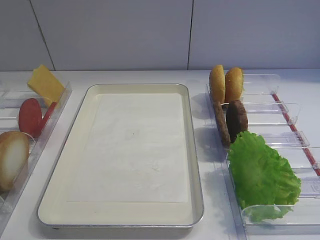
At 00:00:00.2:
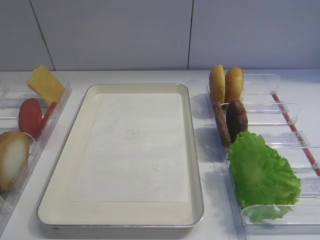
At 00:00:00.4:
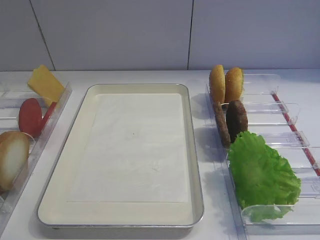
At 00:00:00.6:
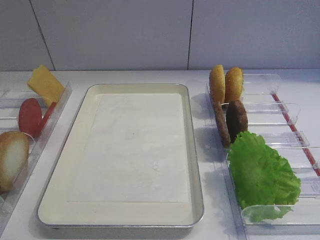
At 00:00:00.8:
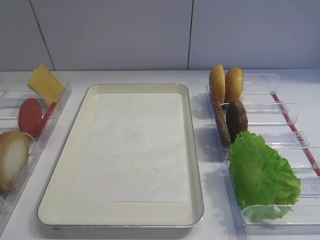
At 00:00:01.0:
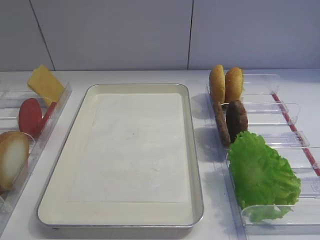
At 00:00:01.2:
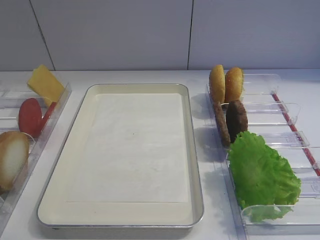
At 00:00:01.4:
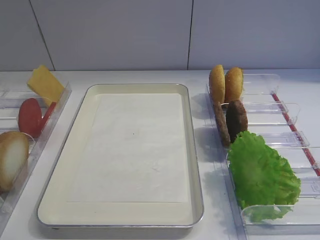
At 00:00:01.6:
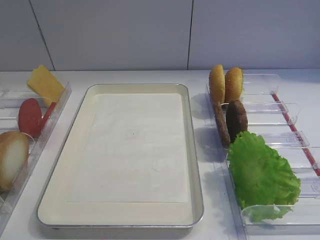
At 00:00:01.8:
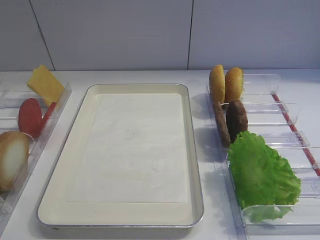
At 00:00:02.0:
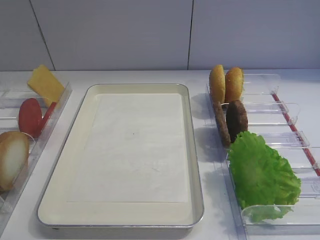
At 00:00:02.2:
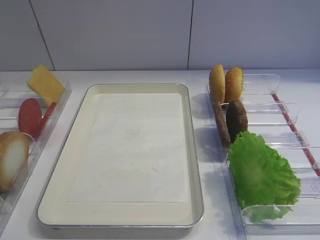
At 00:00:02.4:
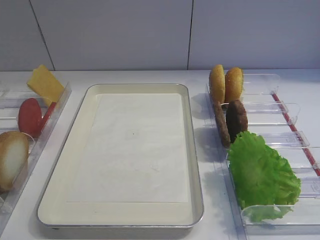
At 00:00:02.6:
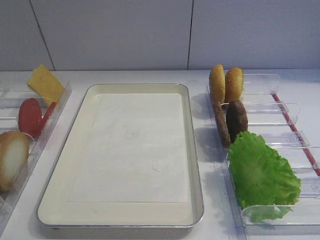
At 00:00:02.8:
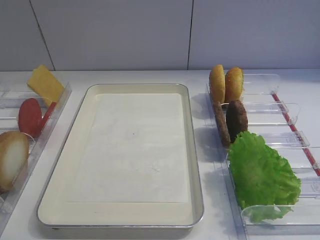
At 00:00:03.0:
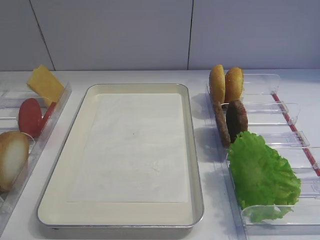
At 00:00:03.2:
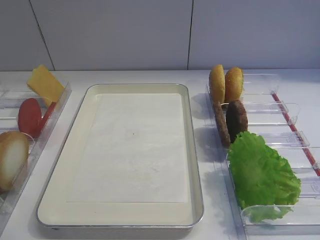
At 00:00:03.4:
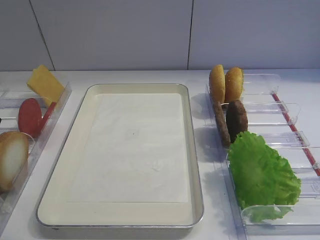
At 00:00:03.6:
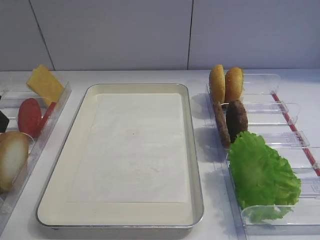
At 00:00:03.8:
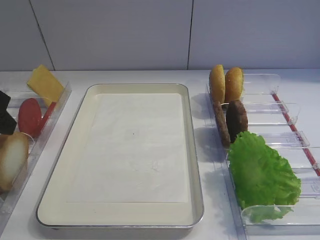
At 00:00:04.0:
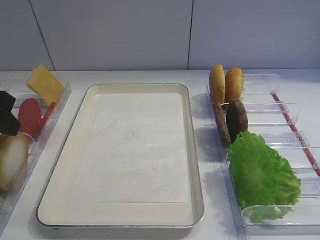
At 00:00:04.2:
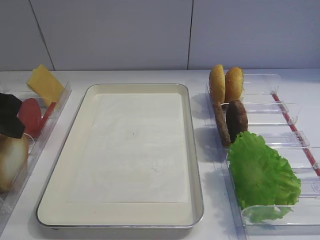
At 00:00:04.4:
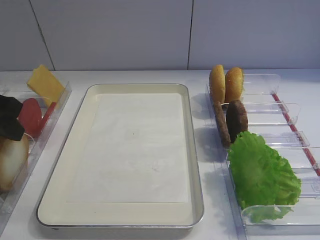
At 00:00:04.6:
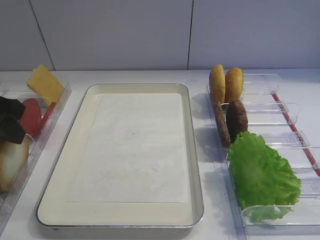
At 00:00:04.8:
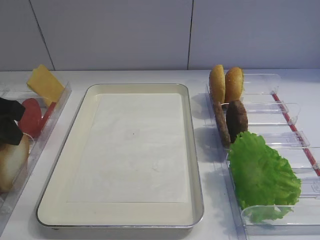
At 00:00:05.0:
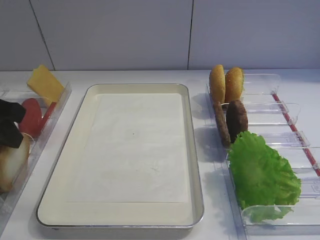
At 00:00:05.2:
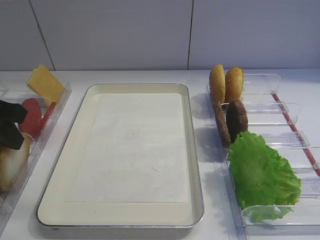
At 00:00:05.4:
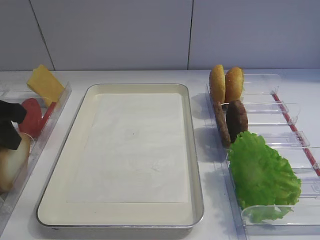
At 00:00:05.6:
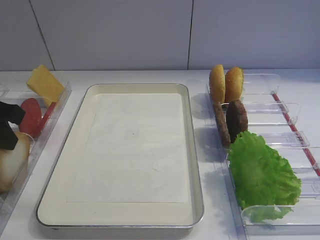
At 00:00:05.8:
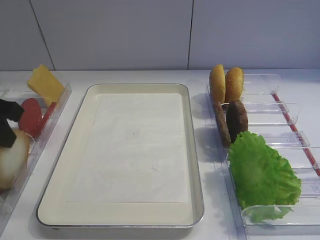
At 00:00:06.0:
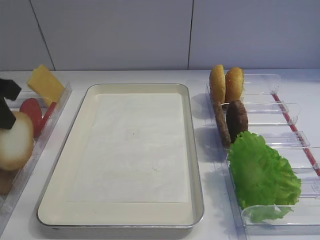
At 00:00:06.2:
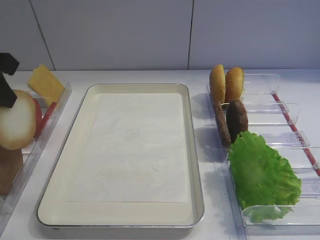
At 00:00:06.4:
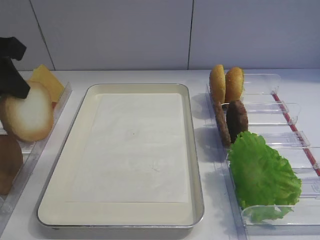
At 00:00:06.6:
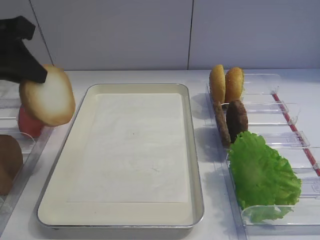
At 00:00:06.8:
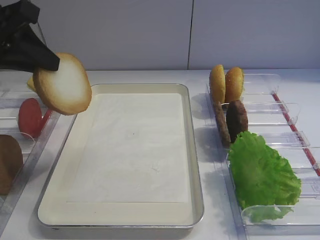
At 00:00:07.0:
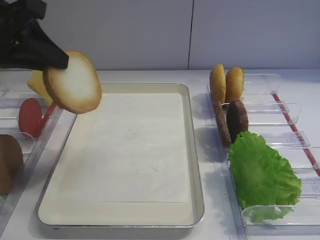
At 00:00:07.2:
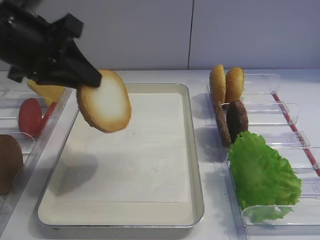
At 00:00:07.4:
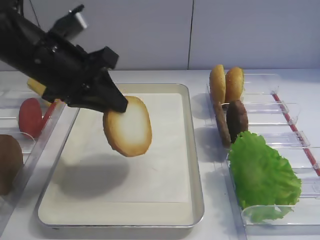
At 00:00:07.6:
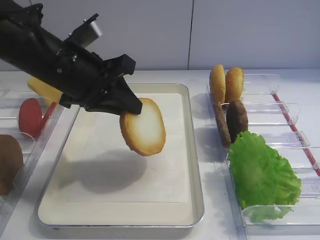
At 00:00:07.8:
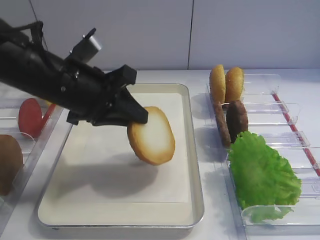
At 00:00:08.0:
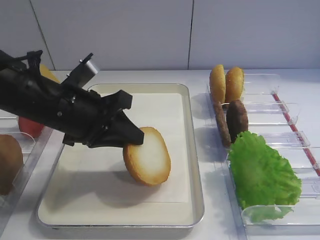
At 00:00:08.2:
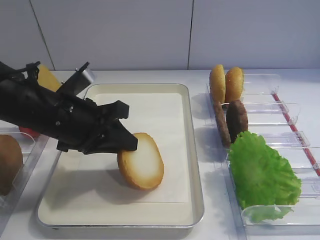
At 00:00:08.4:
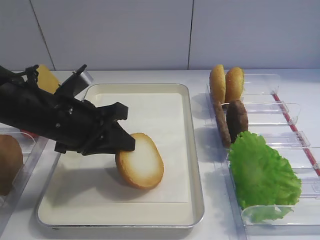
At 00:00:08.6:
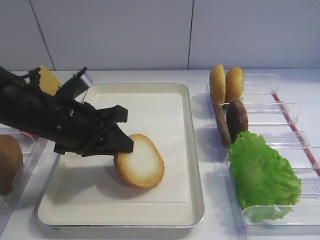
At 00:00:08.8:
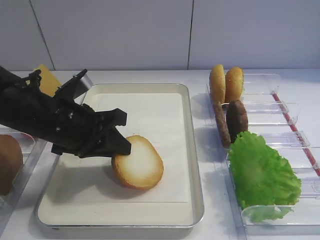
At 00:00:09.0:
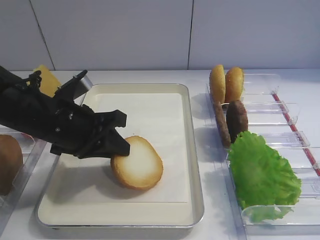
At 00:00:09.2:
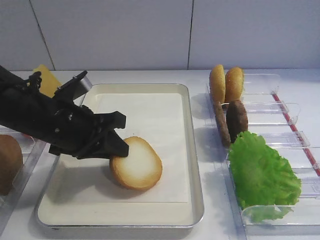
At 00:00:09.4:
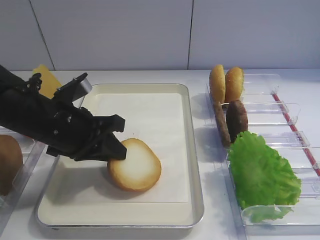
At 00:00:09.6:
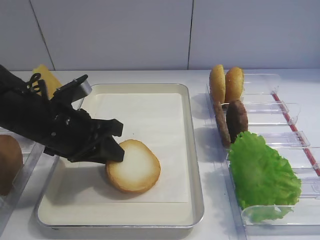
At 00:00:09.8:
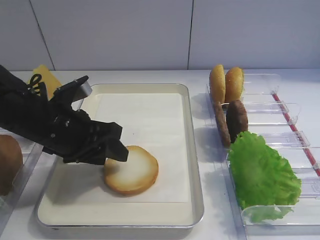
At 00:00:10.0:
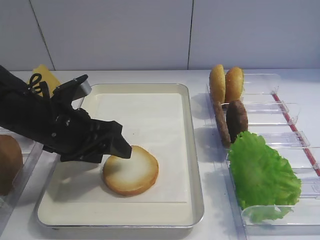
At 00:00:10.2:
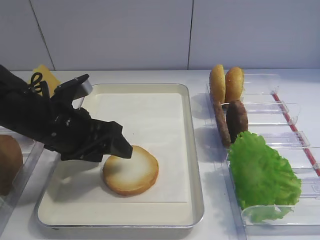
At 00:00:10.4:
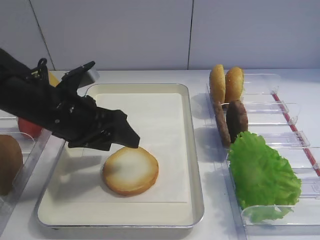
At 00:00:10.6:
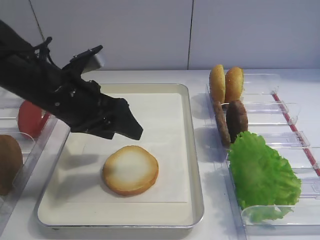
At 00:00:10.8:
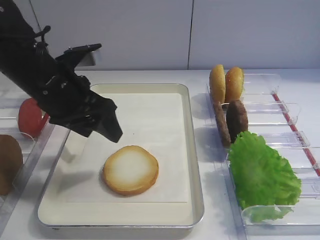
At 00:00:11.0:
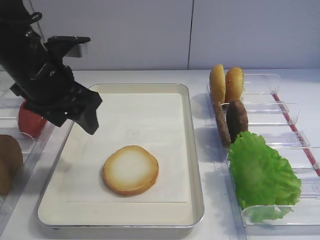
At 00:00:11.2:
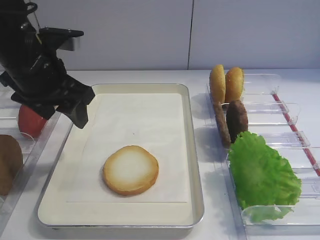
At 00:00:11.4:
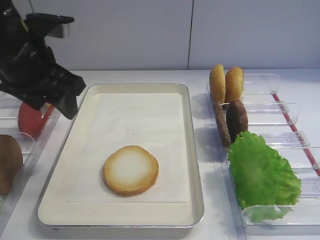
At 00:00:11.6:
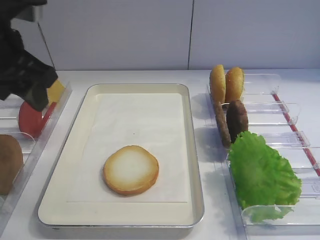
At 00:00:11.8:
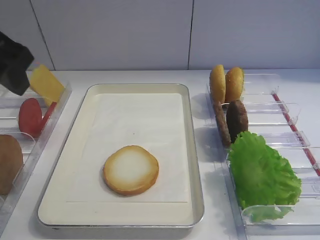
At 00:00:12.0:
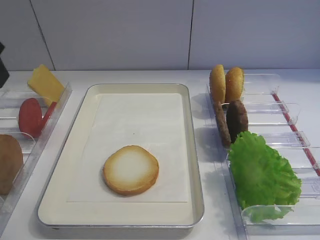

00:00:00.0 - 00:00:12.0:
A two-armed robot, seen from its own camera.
Step, 00:00:06.2 - 00:00:09.8: Place the bread slice on the tray with the left gripper.
00:00:00.0 - 00:00:01.6: The two grippers keep their place.
00:00:03.0 - 00:00:04.4: The left gripper travels forward by approximately 5 cm.
00:00:04.4 - 00:00:06.0: The left gripper travels upward by roughly 5 cm.
00:00:06.0 - 00:00:07.6: The left gripper goes roughly 15 cm to the right and downward.
00:00:09.0 - 00:00:10.4: The left gripper changes place by some 5 cm, and opens.
00:00:10.4 - 00:00:12.0: The left gripper is displaced backward, upward and to the left by roughly 25 cm.

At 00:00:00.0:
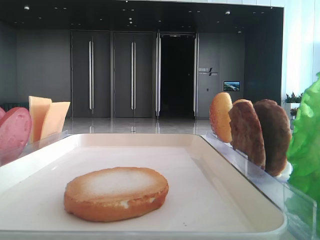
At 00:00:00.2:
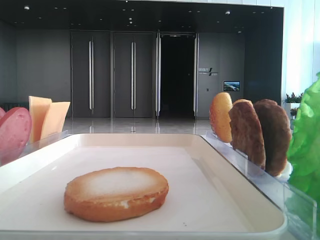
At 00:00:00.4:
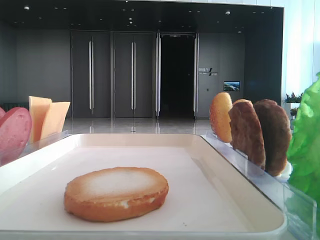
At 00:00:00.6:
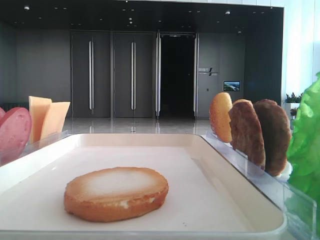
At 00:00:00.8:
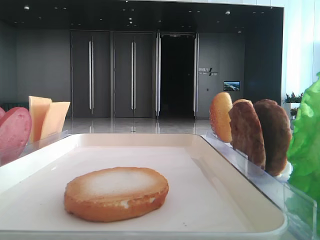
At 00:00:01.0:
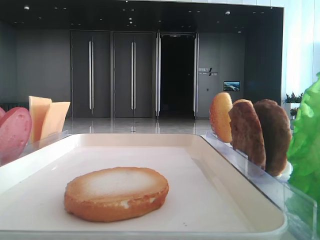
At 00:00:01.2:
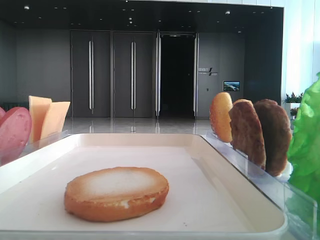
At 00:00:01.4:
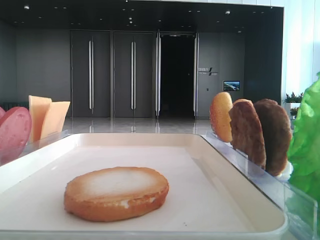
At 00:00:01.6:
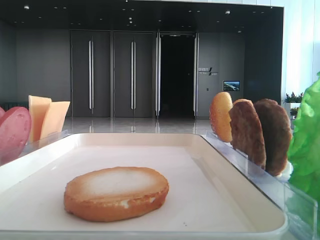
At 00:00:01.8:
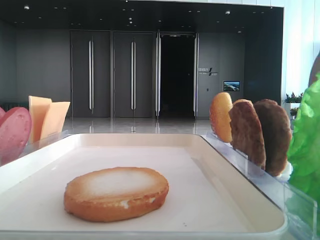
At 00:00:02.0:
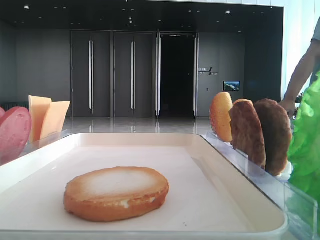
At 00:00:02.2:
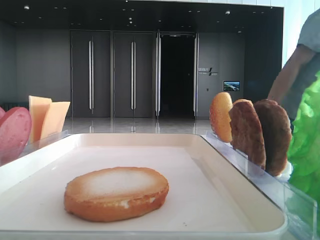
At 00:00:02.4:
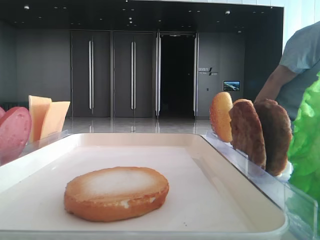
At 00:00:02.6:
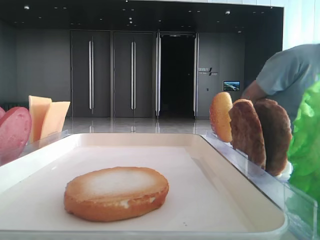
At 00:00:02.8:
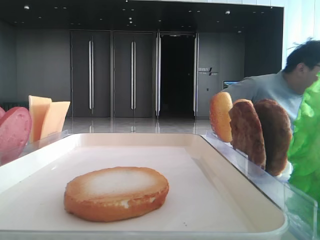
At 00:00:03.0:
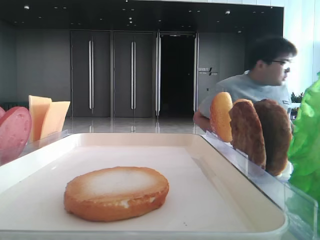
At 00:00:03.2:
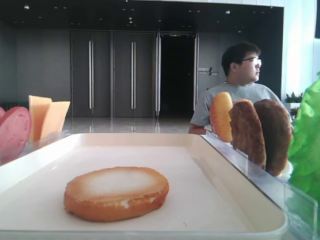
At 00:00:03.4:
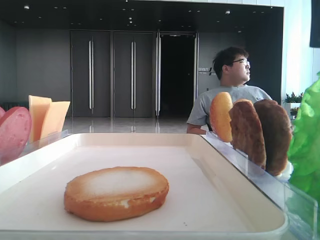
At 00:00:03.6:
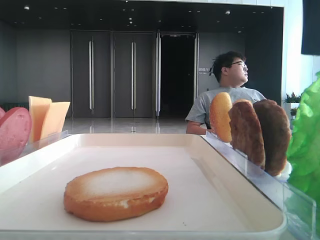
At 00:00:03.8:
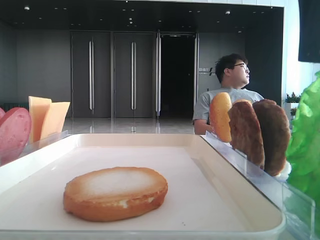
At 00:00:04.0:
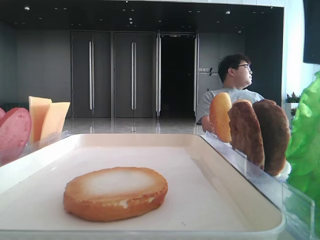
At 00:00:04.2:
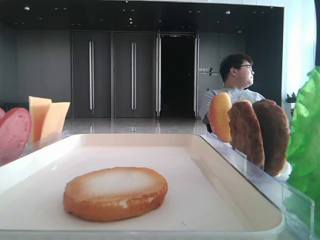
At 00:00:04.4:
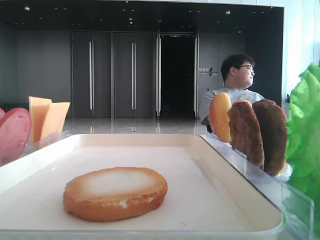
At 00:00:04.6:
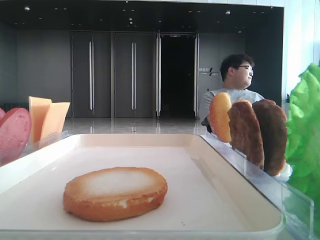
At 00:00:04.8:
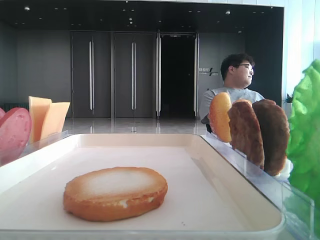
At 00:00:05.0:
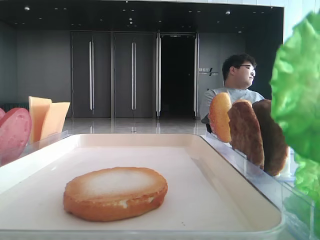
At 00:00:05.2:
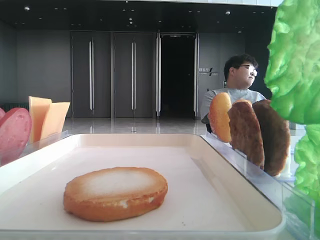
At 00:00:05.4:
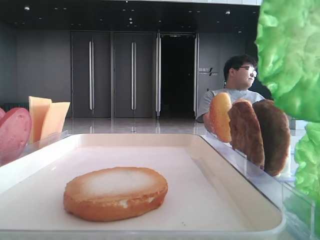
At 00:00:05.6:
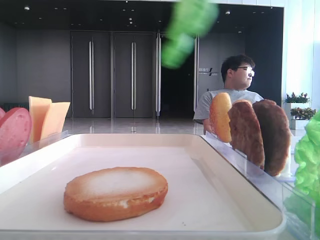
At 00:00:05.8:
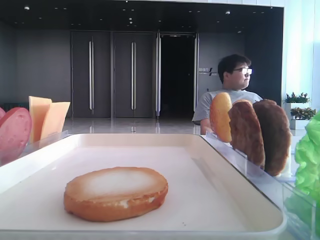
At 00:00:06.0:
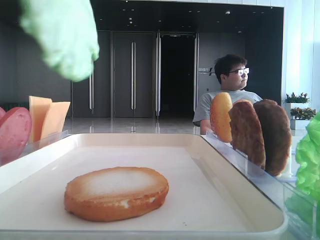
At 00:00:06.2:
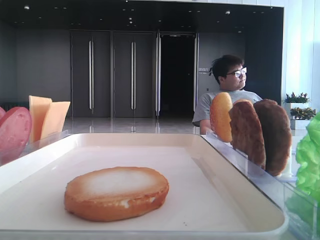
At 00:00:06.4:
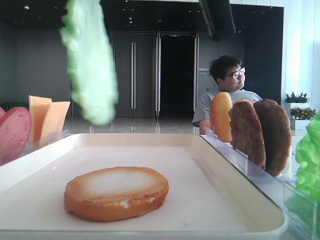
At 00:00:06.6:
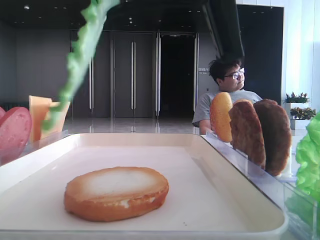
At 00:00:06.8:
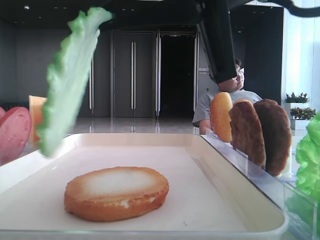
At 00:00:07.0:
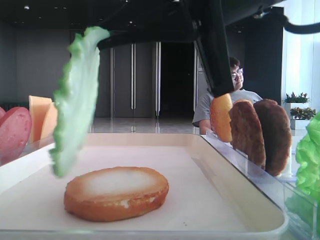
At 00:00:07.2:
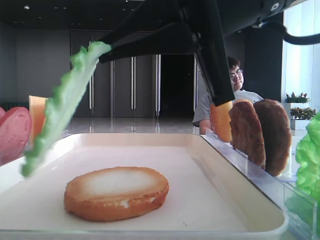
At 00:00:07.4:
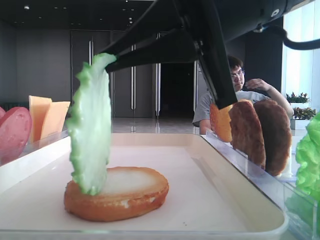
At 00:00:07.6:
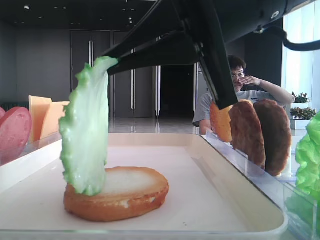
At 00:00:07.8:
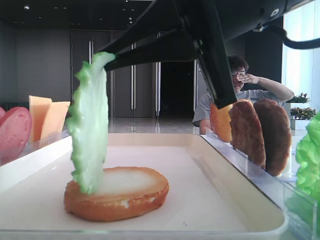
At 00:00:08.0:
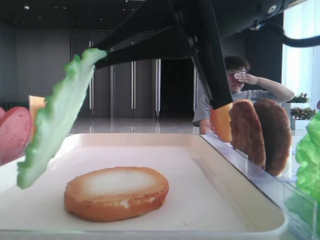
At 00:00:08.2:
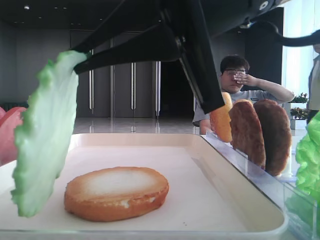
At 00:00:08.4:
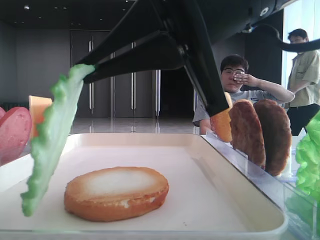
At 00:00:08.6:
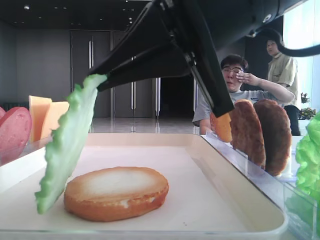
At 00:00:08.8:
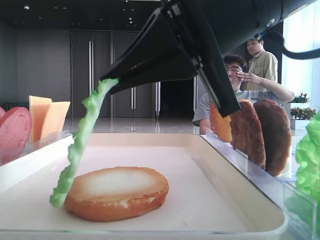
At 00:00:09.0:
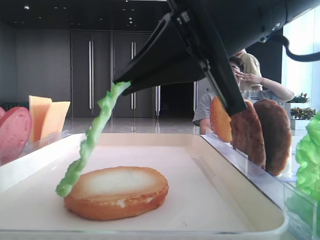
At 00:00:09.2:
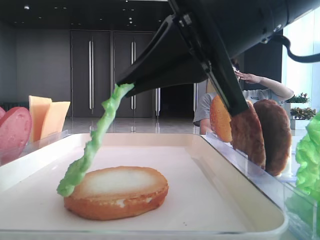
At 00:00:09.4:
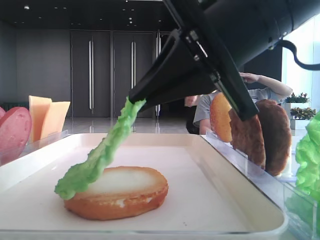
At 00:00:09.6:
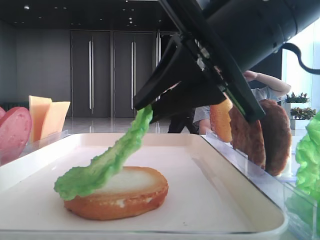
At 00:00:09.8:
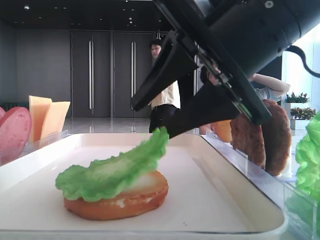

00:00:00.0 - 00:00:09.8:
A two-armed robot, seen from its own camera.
Step, 00:00:00.0 - 00:00:04.6: Grab the lettuce leaf with the right hand.
00:00:01.4 - 00:00:02.8: The right gripper heads to the left, covering some 10 cm, and opens its fingers.
00:00:02.8 - 00:00:04.2: The right gripper travels forward by some 5 cm, and closes its fingers.
00:00:04.2 - 00:00:05.6: The right gripper travels upward by some 10 cm.
00:00:05.6 - 00:00:07.0: The right gripper shifts approximately 15 cm downward and forward.
00:00:07.0 - 00:00:08.4: The grippers move only a little.
00:00:08.4 - 00:00:09.8: The right gripper opens up.
